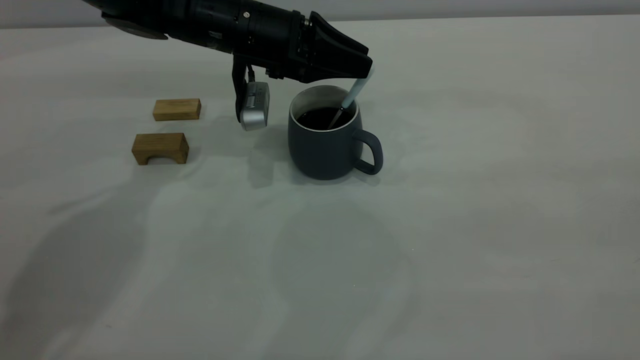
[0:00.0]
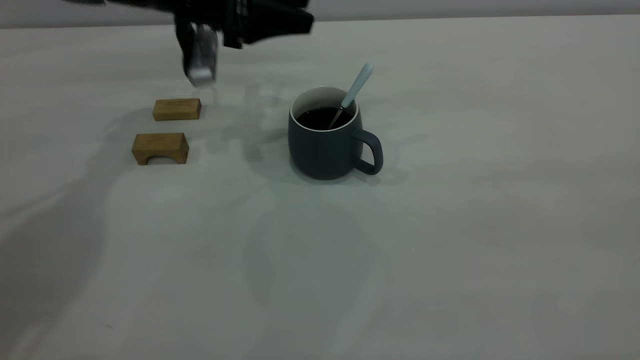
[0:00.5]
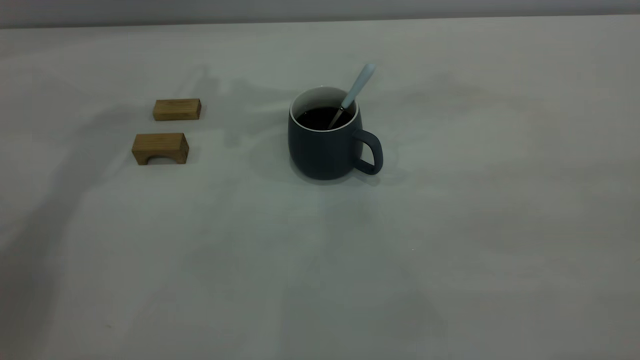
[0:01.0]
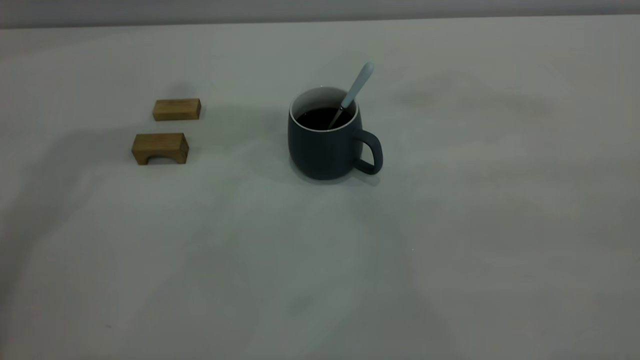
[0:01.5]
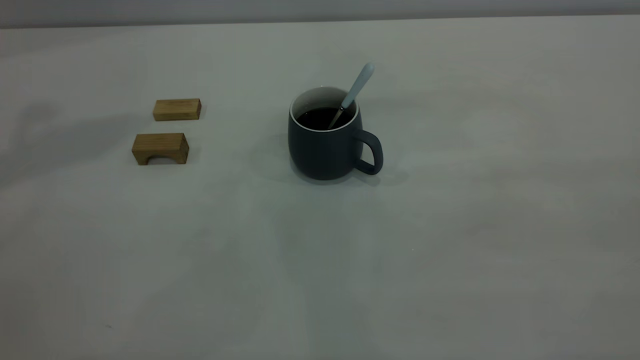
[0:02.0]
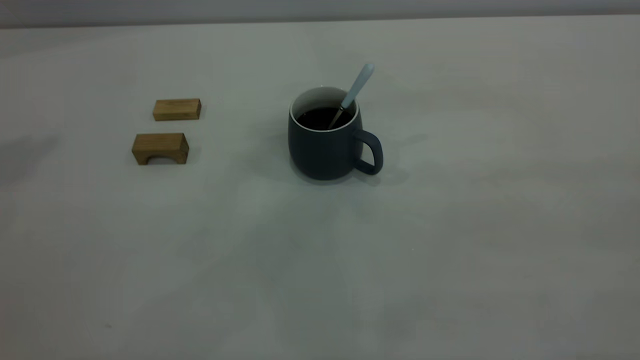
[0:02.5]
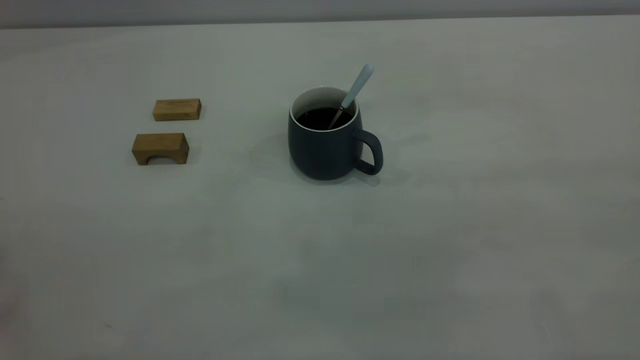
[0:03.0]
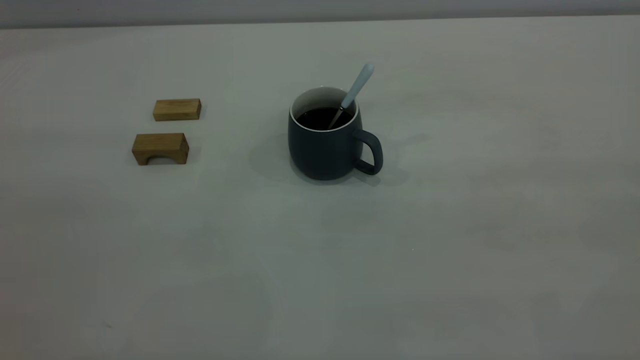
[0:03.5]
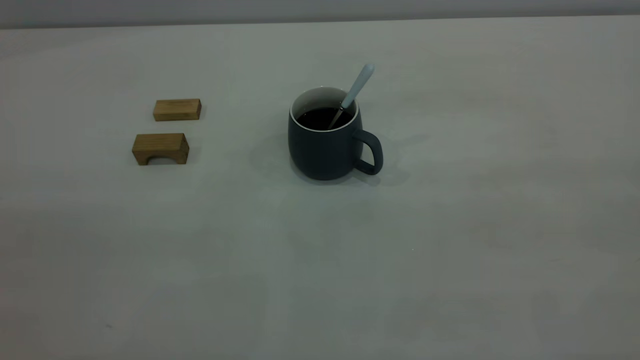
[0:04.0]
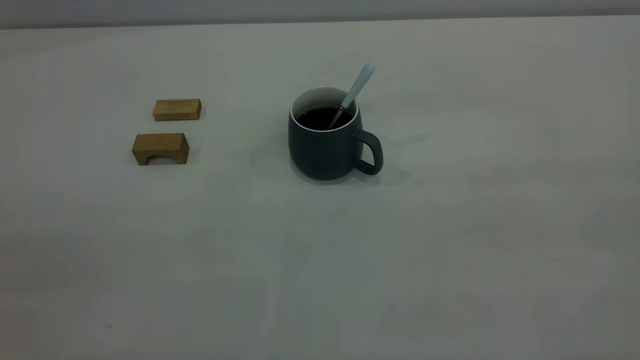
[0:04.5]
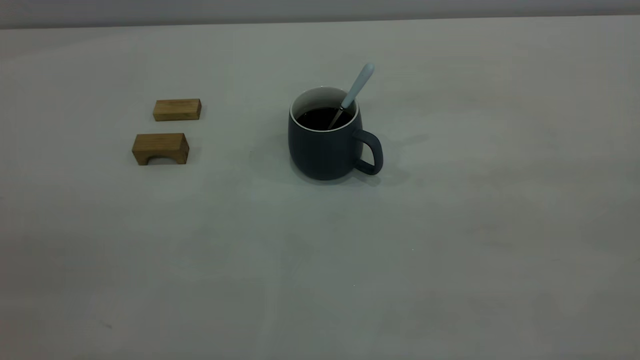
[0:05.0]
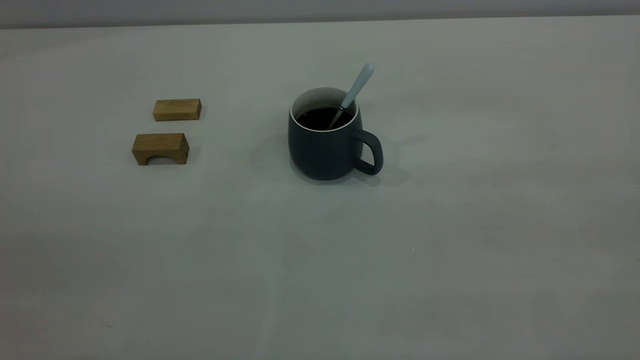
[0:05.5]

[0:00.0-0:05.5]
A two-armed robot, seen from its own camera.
0:00.0 to 0:02.0: The left gripper shifts approximately 50 cm upward and to the left.
